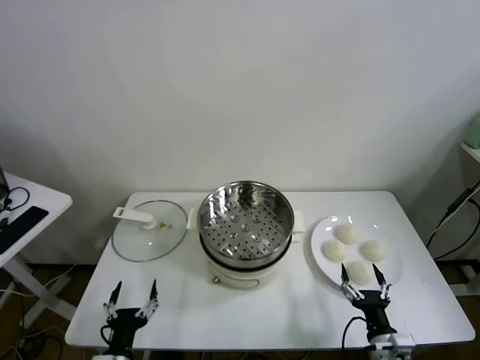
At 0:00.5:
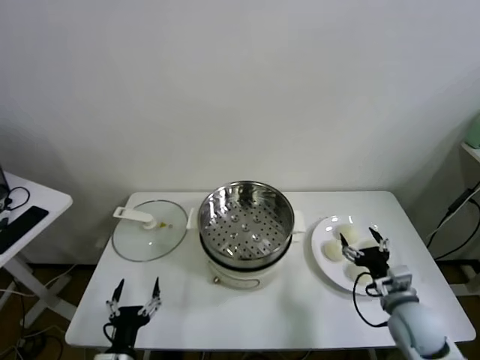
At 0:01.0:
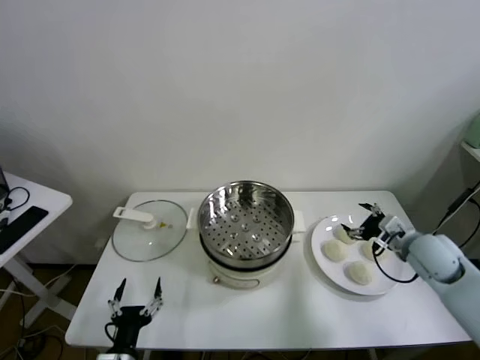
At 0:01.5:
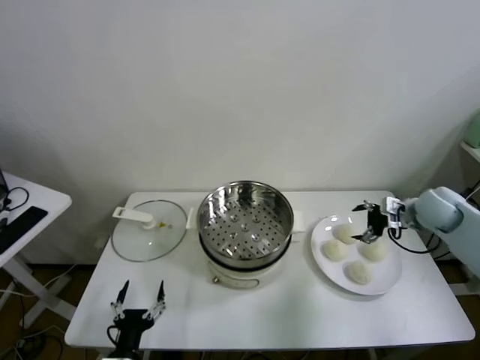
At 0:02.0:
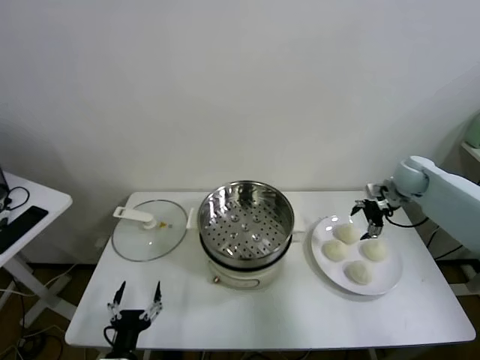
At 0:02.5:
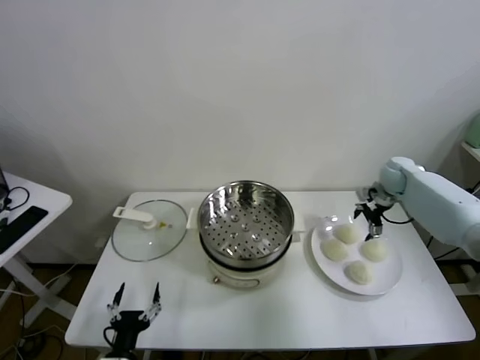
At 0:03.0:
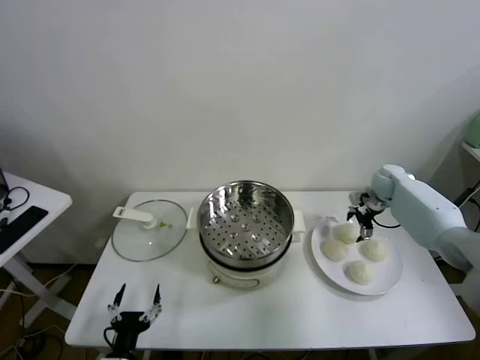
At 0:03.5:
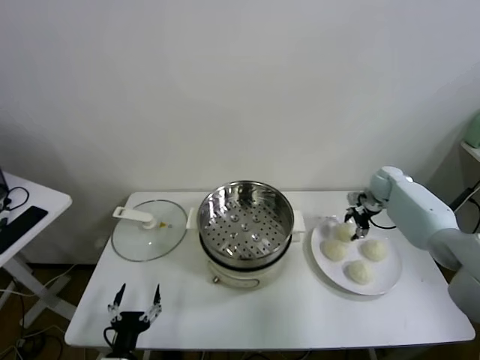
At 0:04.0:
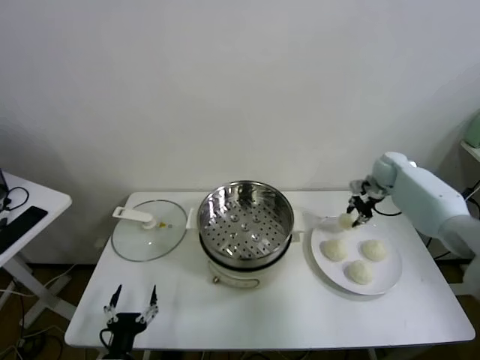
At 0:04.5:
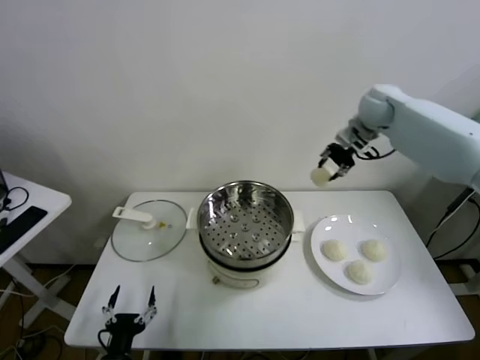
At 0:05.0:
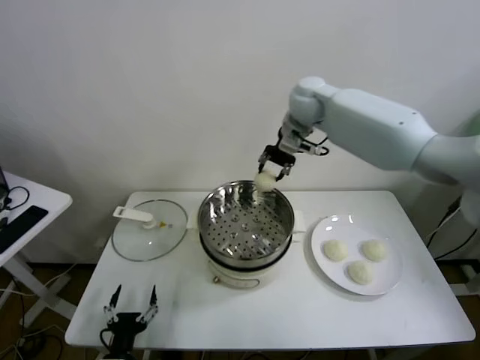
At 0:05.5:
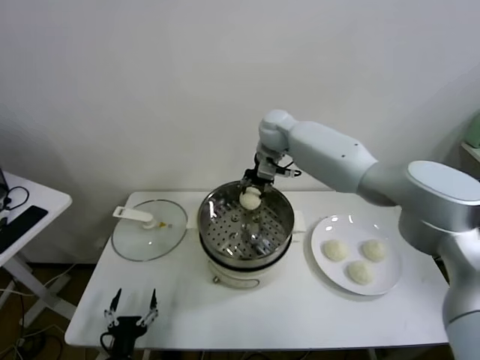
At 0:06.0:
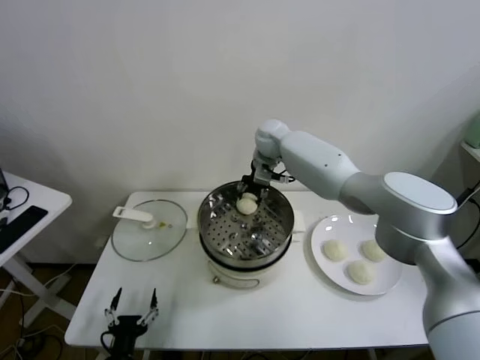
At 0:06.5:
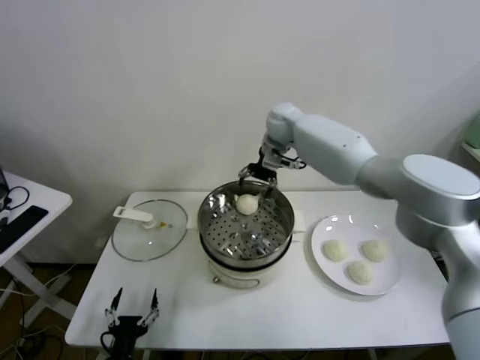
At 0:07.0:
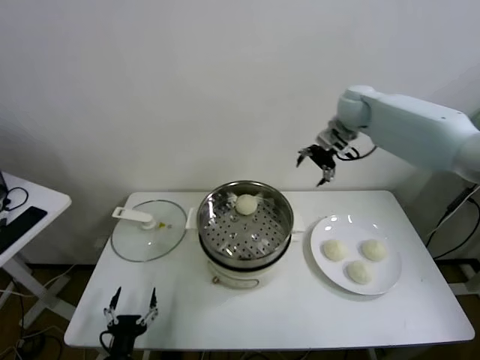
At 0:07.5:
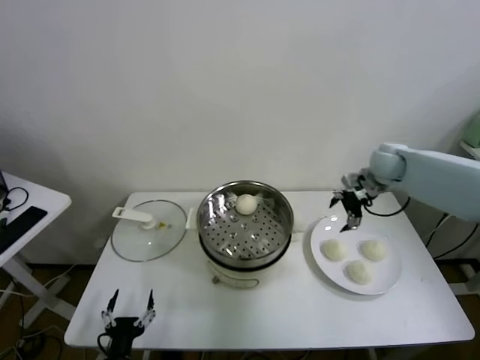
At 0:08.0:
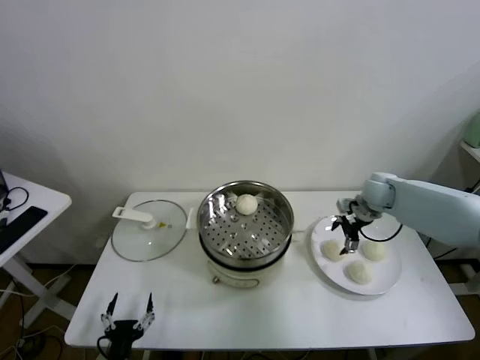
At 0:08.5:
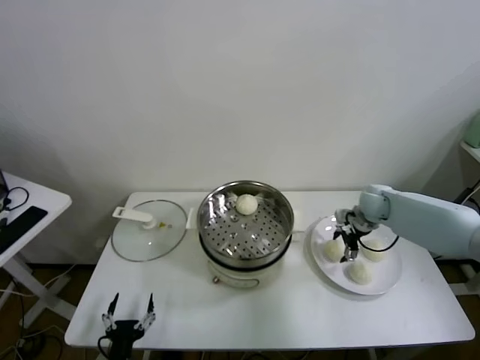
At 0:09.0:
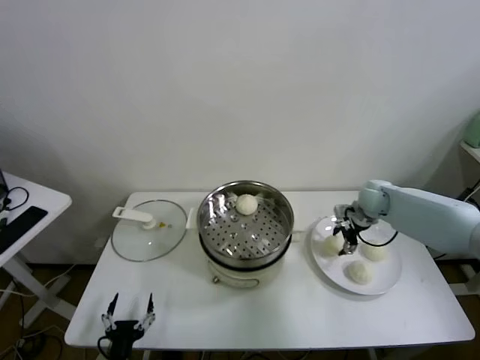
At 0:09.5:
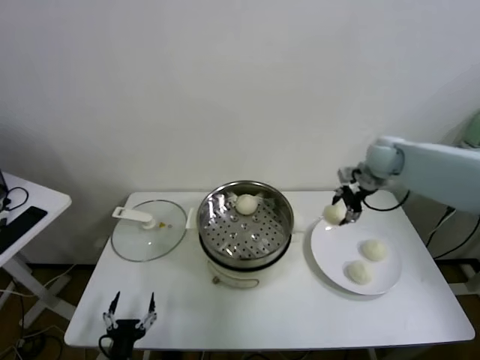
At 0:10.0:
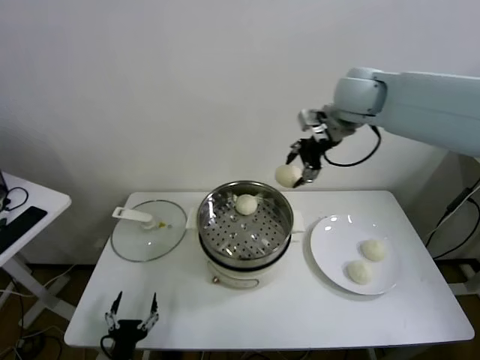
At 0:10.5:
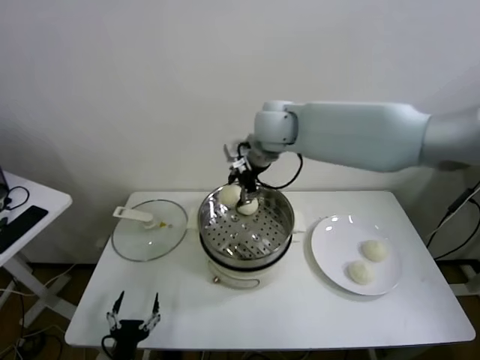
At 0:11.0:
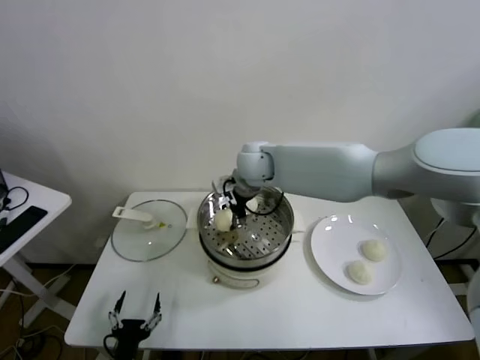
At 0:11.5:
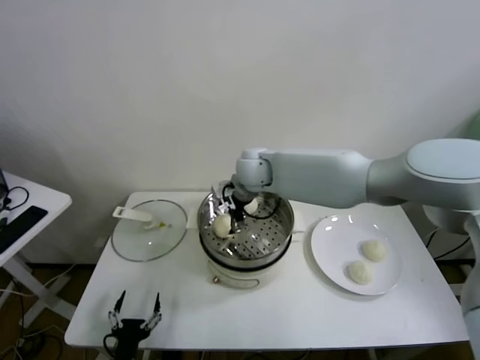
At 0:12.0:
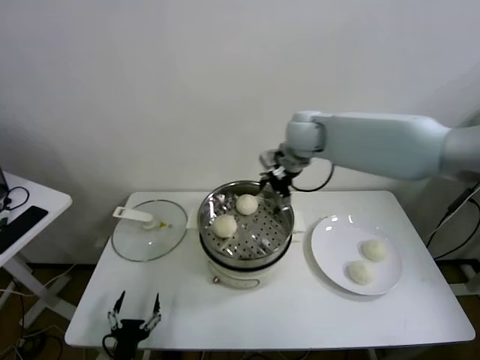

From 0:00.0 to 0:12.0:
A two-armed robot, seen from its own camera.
Task of the whole recording: take steamed baozi put them in steamer.
Step, from 0:00.0 to 0:03.5: Grasp the baozi in the plate with right gripper.
Step, from 0:04.0 to 0:06.0: Place the baozi on the steamer with right gripper.
Step, from 0:06.5 to 0:08.5: Grasp the baozi in the plate with right gripper.
Step, from 0:09.0 to 0:11.5: Place the baozi on the steamer with right gripper.
From 0:02.0 to 0:04.0: The right gripper is displaced forward by some 5 cm, travels downward and back again, approximately 10 cm each way, and closes.
From 0:04.0 to 0:06.0: The right gripper is displaced to the left by some 35 cm.
From 0:06.0 to 0:08.0: The right gripper travels to the right by some 30 cm, and opens its fingers.
From 0:08.0 to 0:10.0: The right gripper travels upward and to the left by some 30 cm, and closes up.
From 0:10.0 to 0:12.0: The right gripper travels downward and to the left by some 10 cm, and opens.

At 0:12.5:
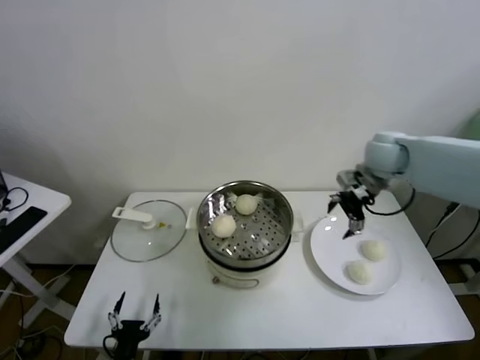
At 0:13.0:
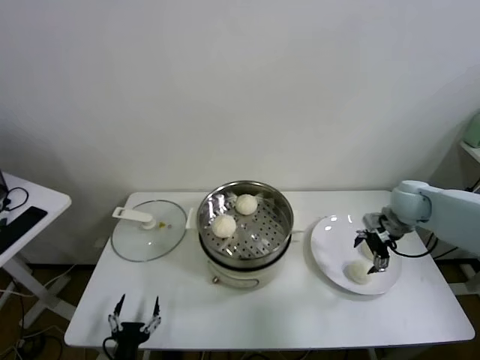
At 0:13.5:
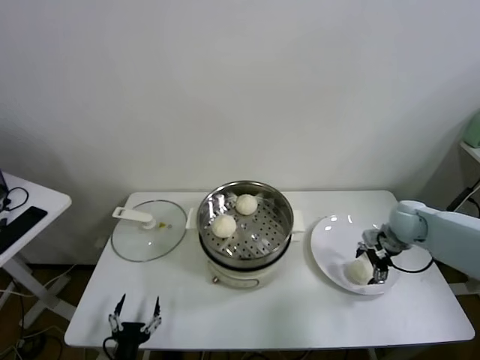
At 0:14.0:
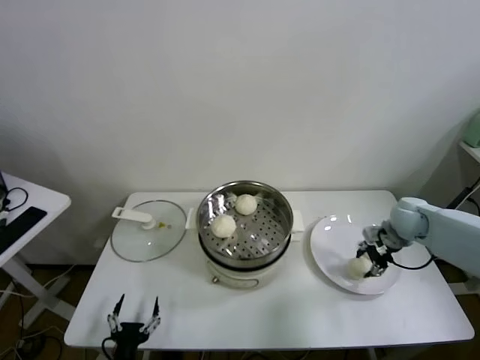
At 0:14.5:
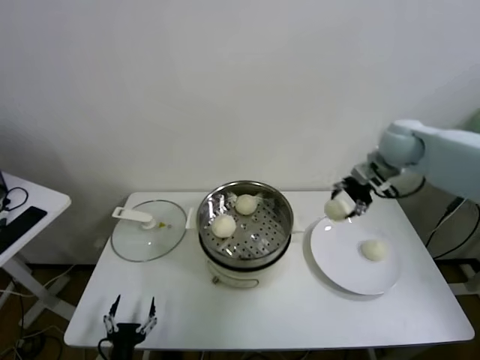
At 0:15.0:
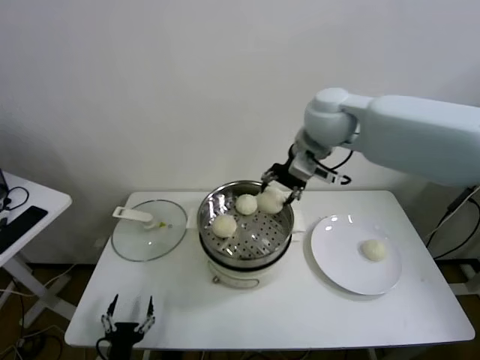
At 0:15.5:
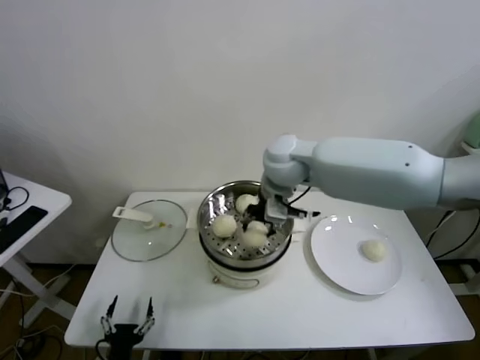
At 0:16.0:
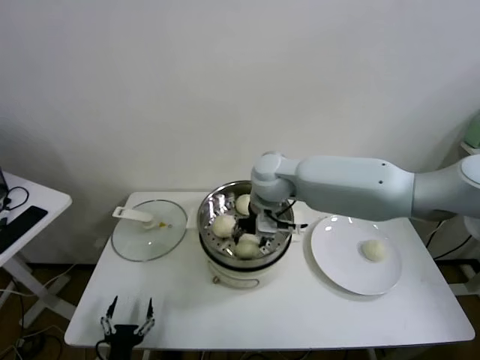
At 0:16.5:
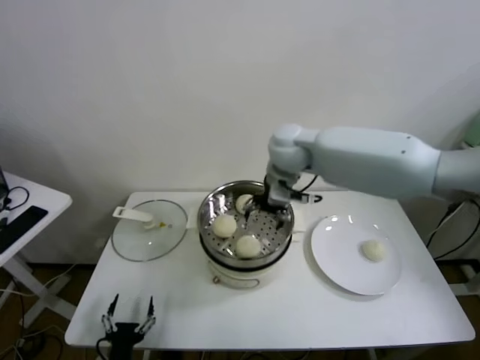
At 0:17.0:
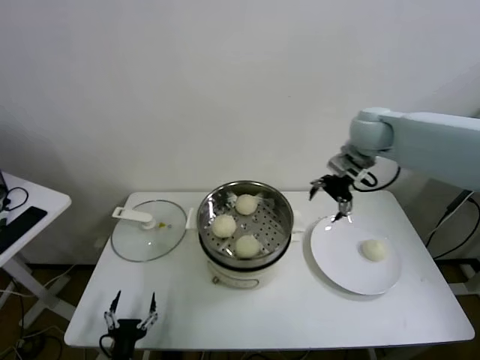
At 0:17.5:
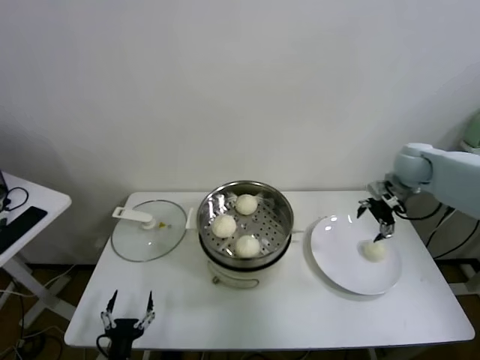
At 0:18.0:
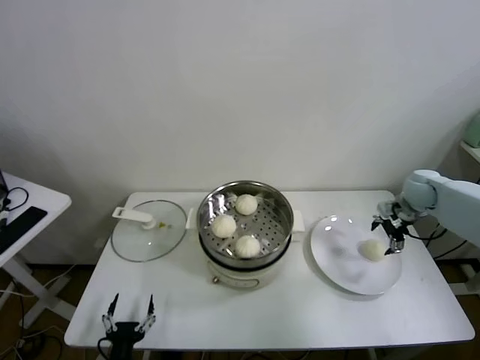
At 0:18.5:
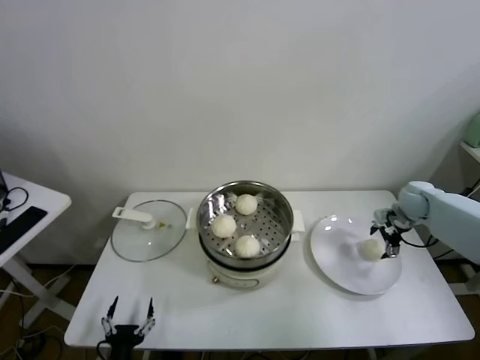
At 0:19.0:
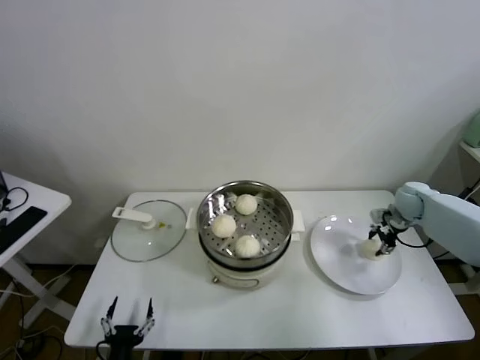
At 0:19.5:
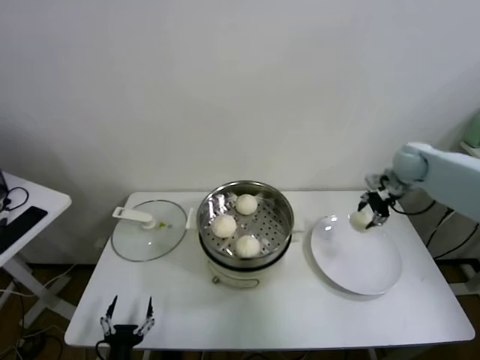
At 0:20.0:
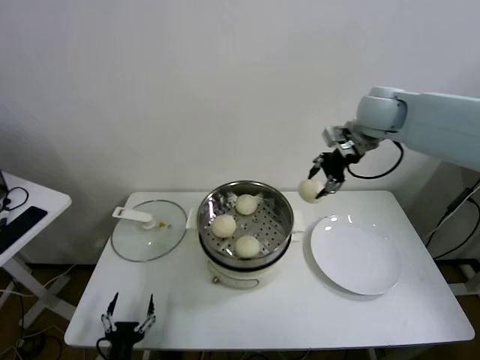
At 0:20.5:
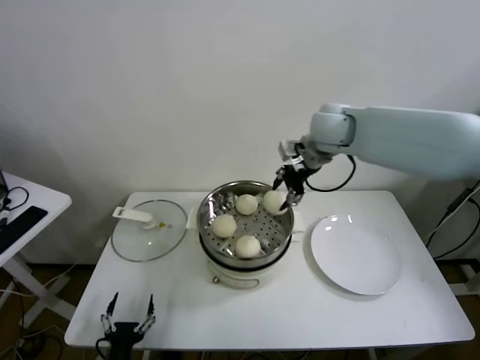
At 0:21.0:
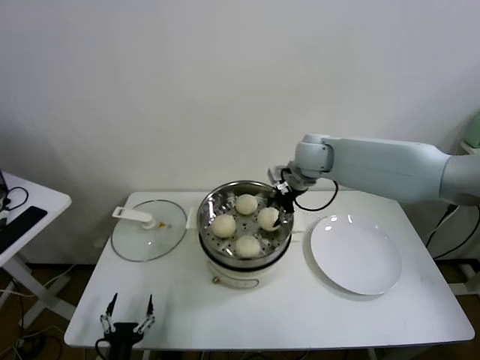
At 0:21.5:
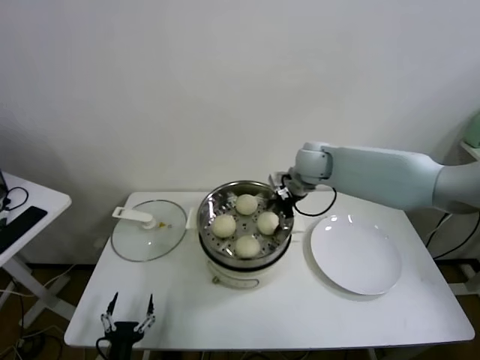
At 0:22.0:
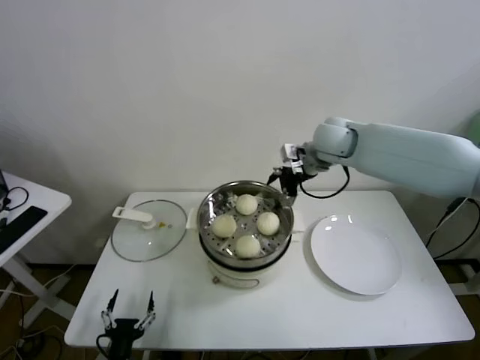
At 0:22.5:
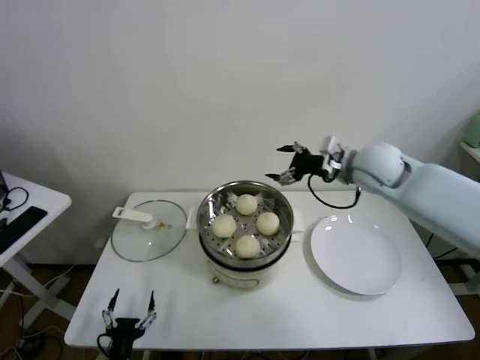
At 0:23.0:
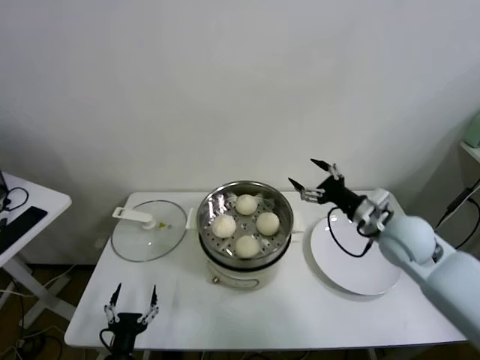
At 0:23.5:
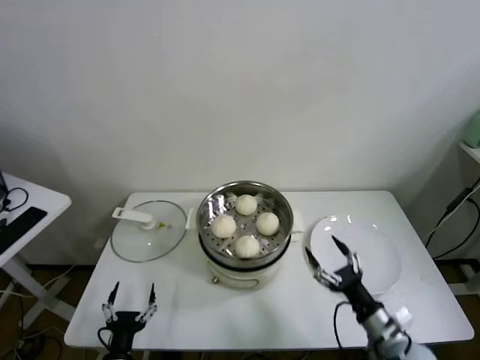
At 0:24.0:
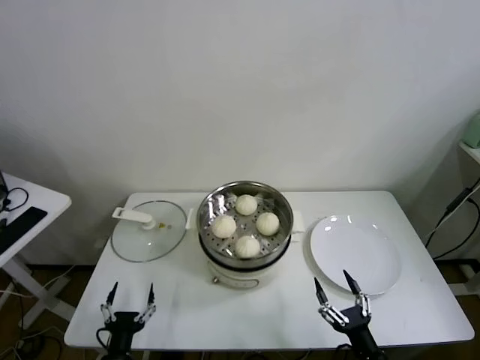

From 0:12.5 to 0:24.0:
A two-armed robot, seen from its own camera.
Task of the whole recording: take steamed baozi put them in steamer.
Step, from 0:14.0 to 0:16.0: Place the baozi on the steamer with right gripper.
Step, from 0:16.5 to 0:19.0: Grasp the baozi in the plate with right gripper.
Step, from 0:19.5 to 0:21.5: Place the baozi on the steamer with right gripper.
From 0:12.5 to 0:14.5: The right gripper goes downward and returns, about 15 cm each way, and closes up.
From 0:14.5 to 0:16.5: The right gripper goes approximately 25 cm to the left, and opens its fingers.
From 0:16.5 to 0:18.5: The right gripper travels to the right and downward by roughly 40 cm.
From 0:18.5 to 0:20.0: The right gripper travels upward and to the left by some 30 cm, and closes up.
From 0:20.0 to 0:22.0: The right gripper moves to the left and downward, roughly 10 cm, and opens up.
From 0:22.0 to 0:24.0: The right gripper shifts roughly 50 cm backward and downward.

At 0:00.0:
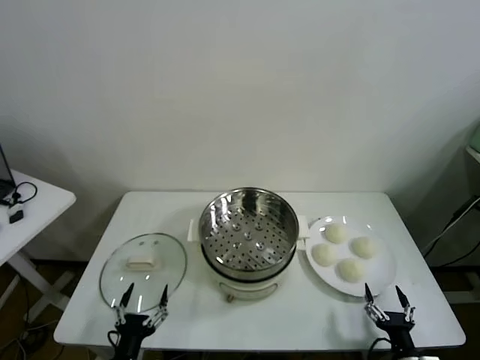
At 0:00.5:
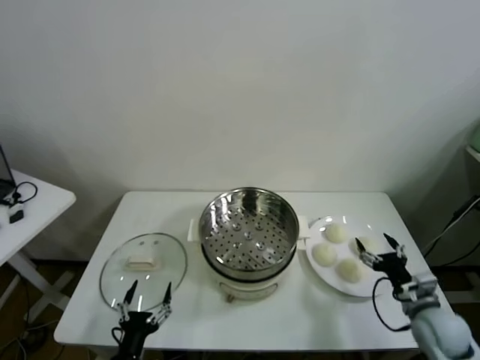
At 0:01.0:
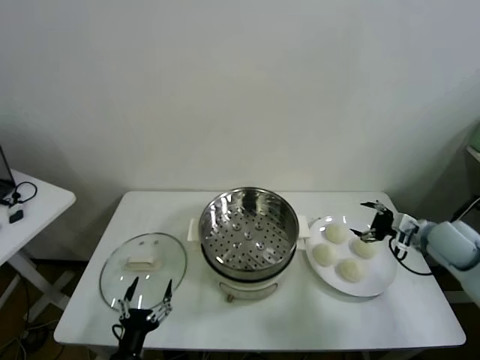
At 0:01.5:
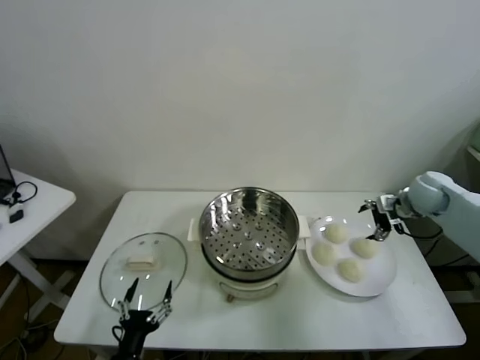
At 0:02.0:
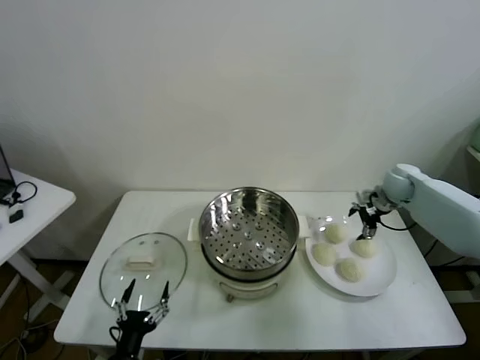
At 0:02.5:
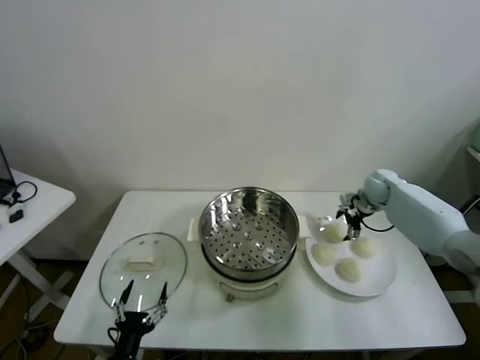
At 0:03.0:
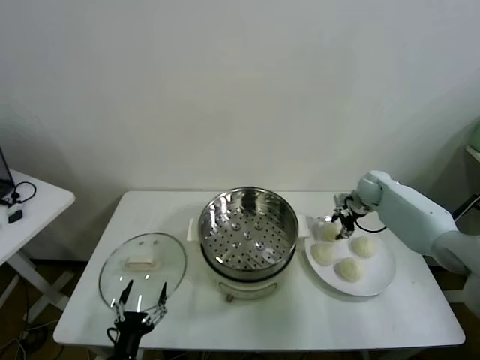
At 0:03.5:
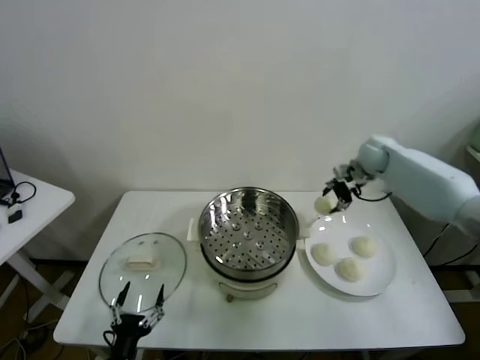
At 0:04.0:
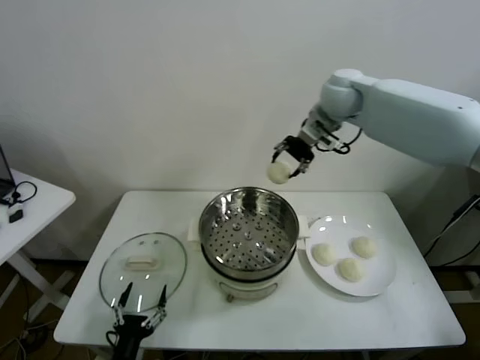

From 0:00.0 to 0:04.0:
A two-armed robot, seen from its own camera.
Task of the whole recording: take steamed baozi put them in steamer.
Step, from 0:00.0 to 0:02.5: Grasp the baozi in the plate with right gripper.
From 0:02.0 to 0:04.0: The right gripper is displaced upward and to the left by approximately 35 cm, and closes.
